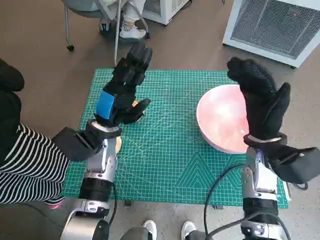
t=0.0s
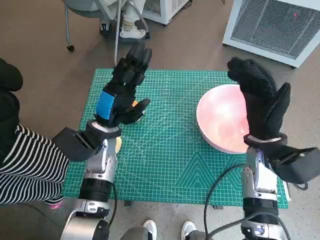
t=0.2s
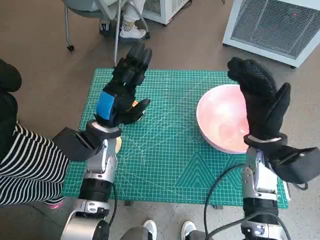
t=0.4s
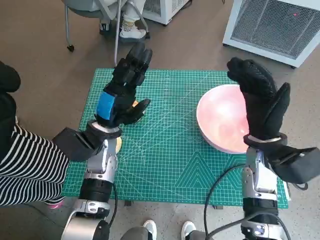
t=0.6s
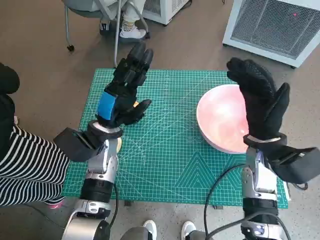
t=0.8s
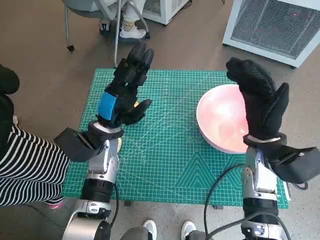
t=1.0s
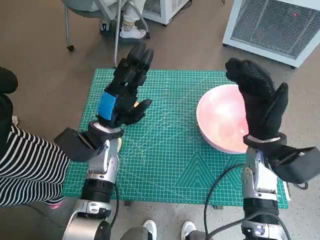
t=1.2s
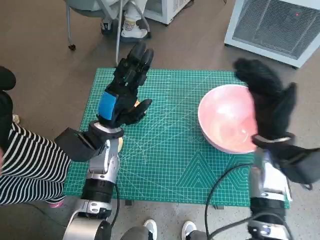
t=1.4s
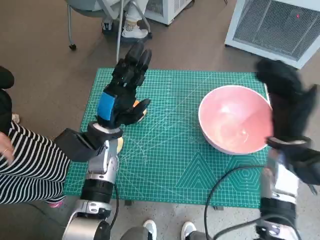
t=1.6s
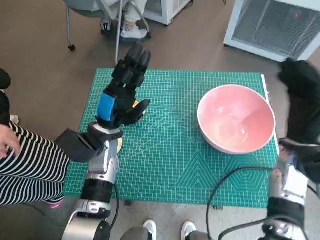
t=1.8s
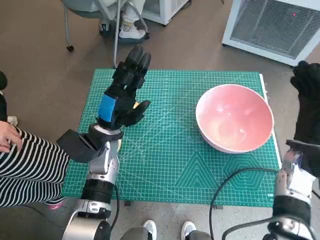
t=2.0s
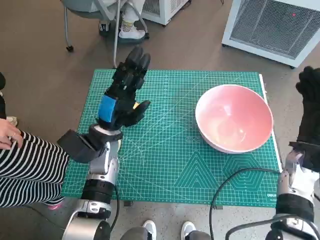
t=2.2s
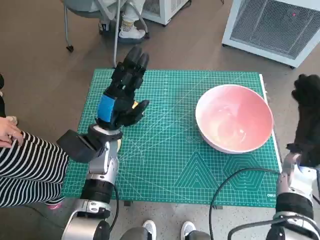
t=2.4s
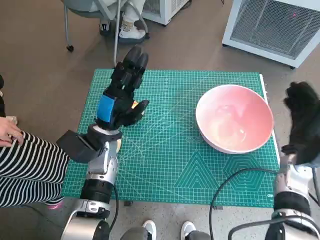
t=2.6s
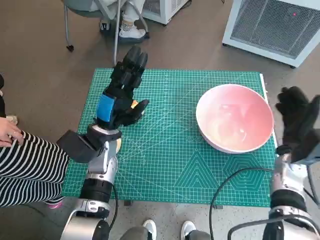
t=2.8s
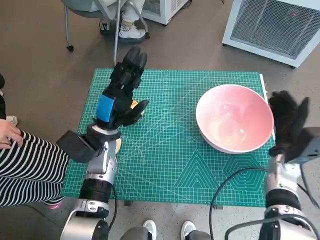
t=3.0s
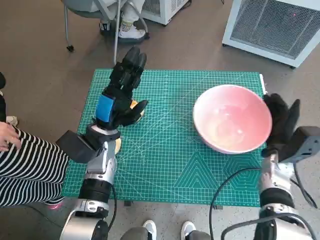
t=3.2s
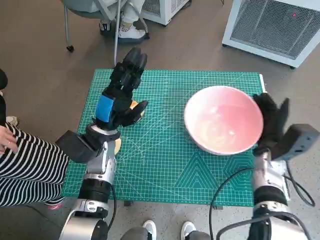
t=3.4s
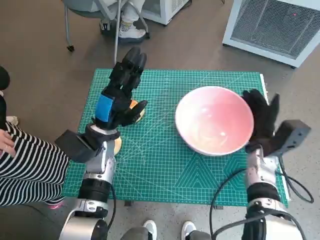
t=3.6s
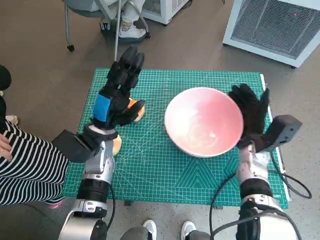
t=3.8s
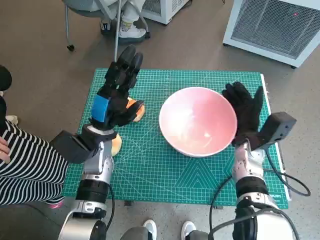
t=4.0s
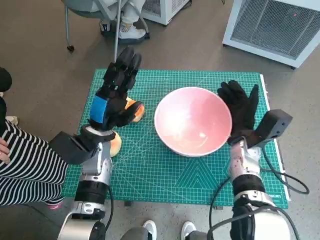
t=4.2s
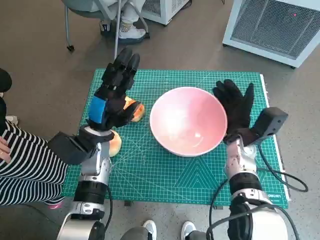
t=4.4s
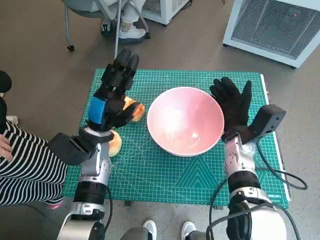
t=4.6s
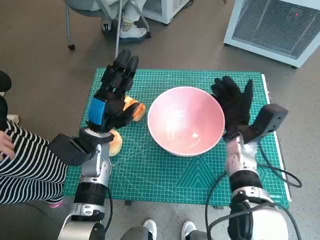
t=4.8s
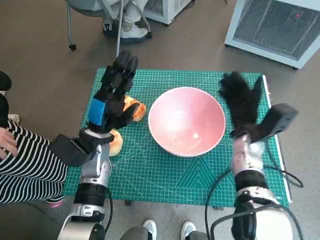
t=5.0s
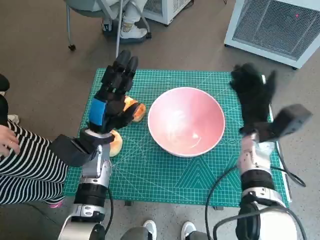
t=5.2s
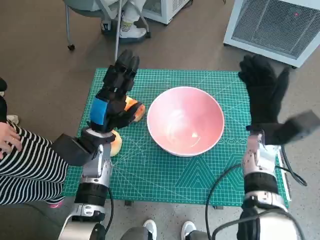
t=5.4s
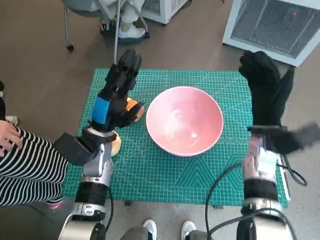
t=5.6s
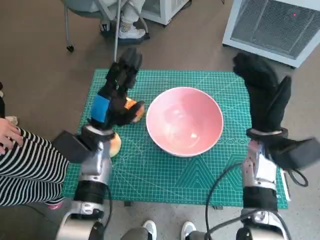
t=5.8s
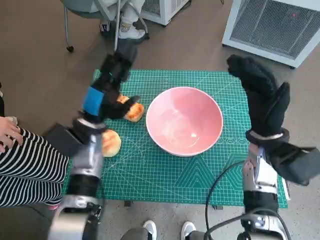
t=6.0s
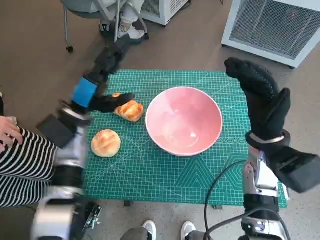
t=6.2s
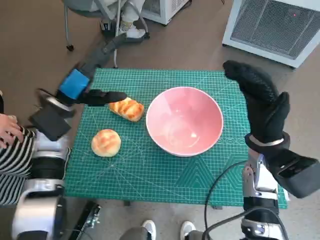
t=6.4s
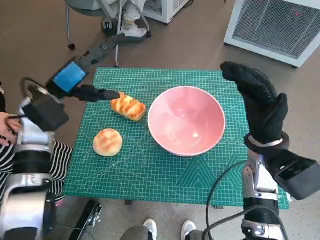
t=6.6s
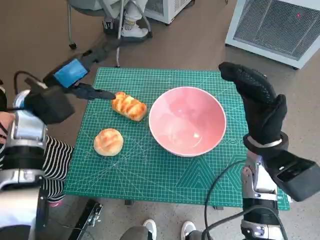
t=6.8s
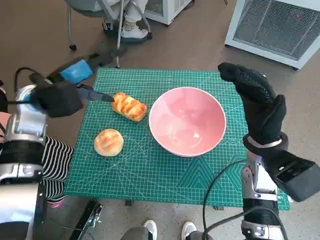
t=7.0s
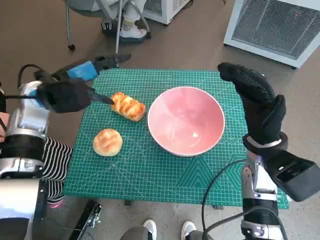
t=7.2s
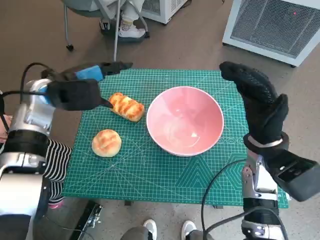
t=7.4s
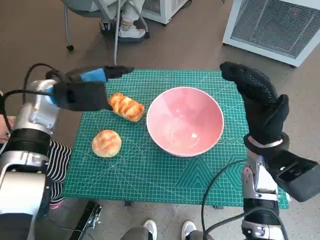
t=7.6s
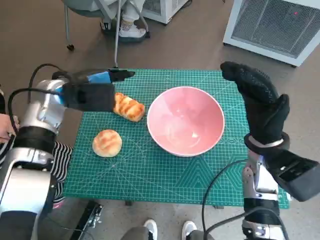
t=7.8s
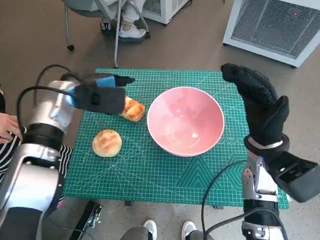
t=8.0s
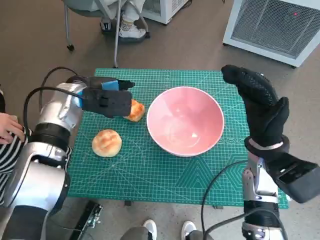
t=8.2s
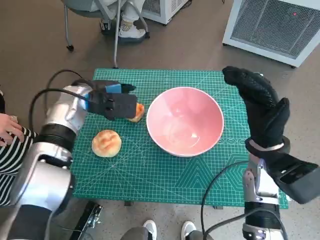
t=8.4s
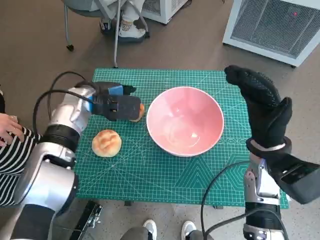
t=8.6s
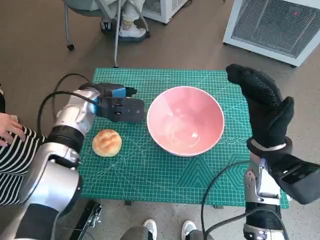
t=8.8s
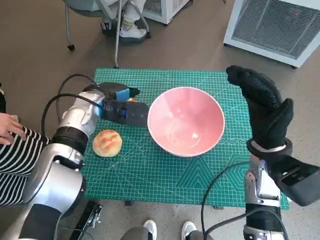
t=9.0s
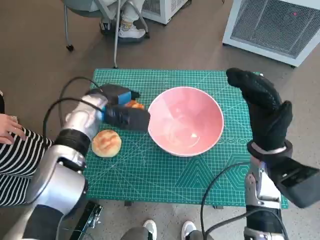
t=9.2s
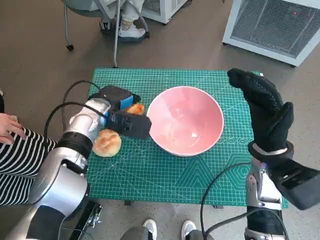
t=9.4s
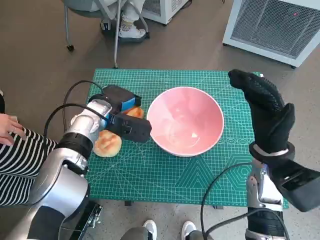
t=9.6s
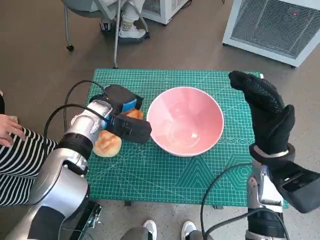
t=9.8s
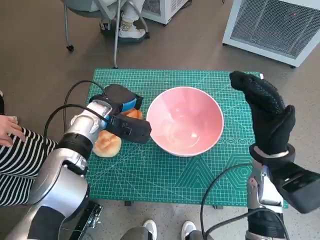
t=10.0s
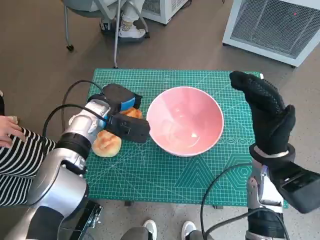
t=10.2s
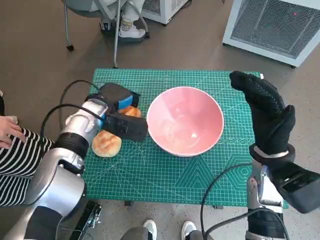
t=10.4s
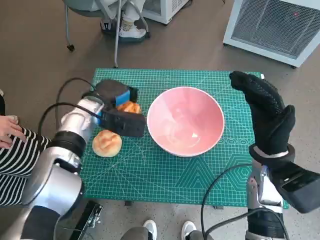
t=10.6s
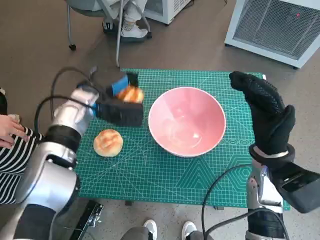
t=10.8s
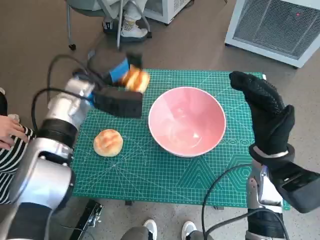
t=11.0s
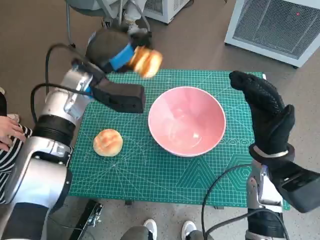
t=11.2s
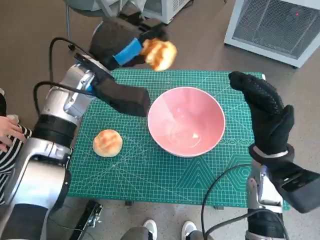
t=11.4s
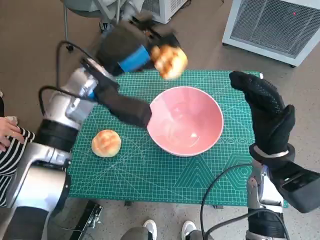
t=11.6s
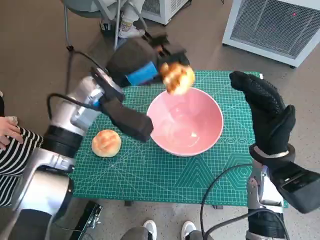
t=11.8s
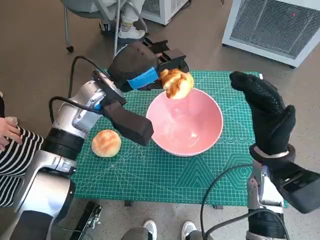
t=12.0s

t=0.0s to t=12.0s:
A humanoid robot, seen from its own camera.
Task of the whole recording: Push the bowl into the center of the table and put the bread into the bowl.
Step, t=0.0s to t=4.8s: Move the pink bowl to the center of table with right hand.
Step, t=5.2s to t=9.6s: Grasp the long bread with left hand.
t=1.6s to t=3.0s: The right hand travels downward by some 10 cm.
t=3.0s to t=4.4s: The right hand moves to the left, roughly 10 cm.
t=4.4s to t=6.0s: The right hand goes approximately 10 cm upward.
t=6.0s to t=7.6s: The left hand heads upward and to the left, covering about 10 cm.
t=7.6s to t=9.0s: The left hand goes approximately 10 cm to the right and downward.
t=9.0s to t=10.4s: The hands make only small movements.
t=10.4s to t=12.0s: The left hand moves upward, roughly 10 cm.

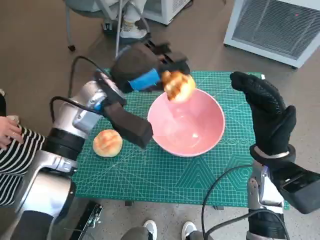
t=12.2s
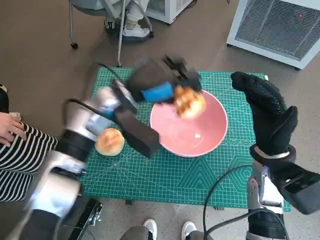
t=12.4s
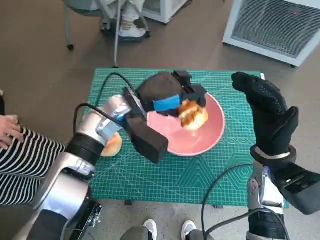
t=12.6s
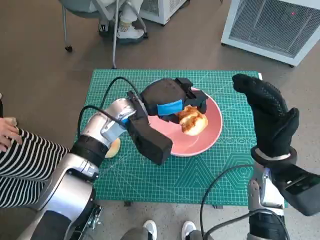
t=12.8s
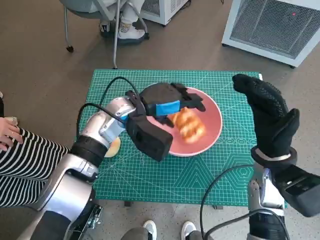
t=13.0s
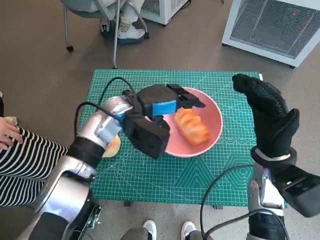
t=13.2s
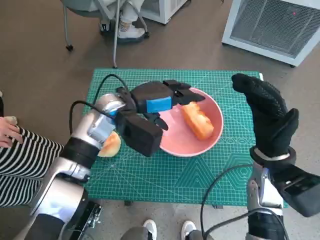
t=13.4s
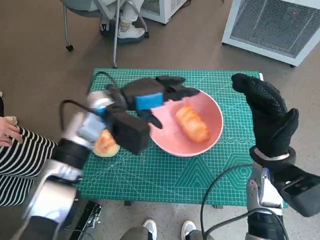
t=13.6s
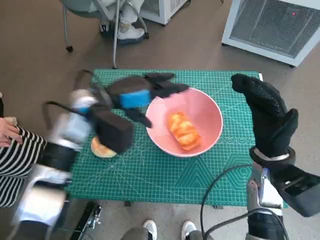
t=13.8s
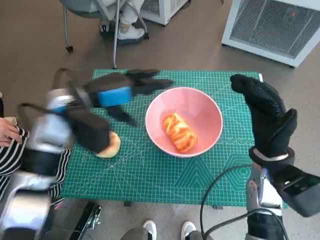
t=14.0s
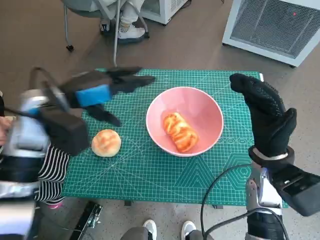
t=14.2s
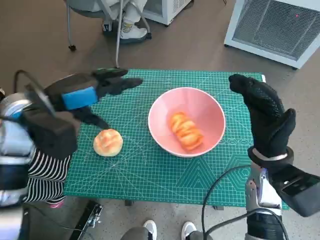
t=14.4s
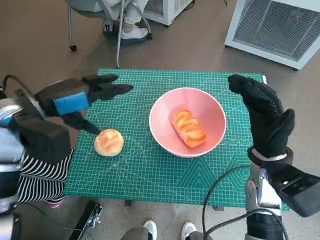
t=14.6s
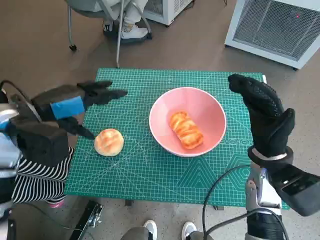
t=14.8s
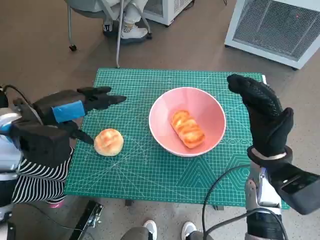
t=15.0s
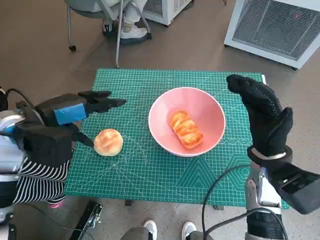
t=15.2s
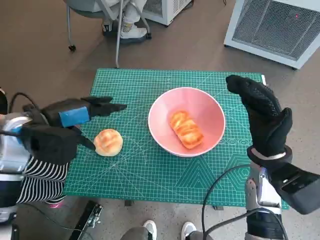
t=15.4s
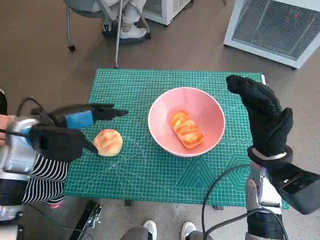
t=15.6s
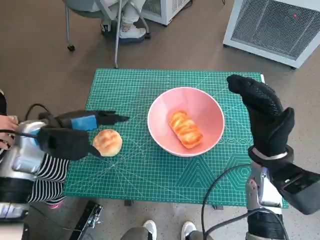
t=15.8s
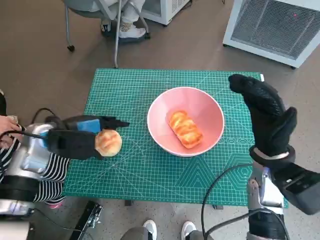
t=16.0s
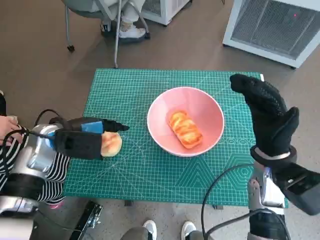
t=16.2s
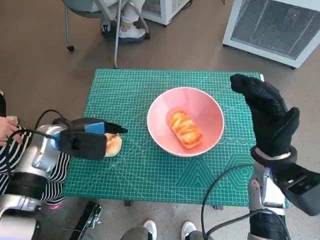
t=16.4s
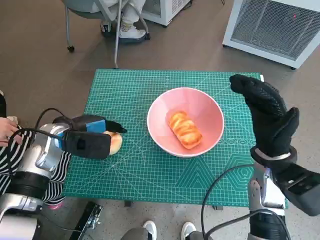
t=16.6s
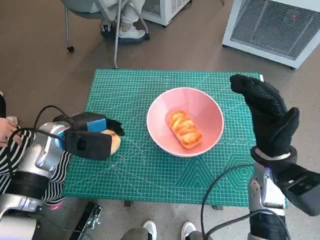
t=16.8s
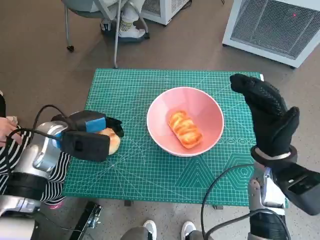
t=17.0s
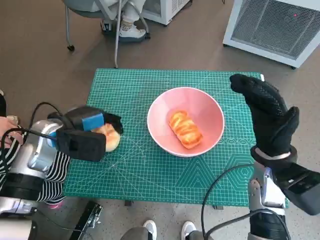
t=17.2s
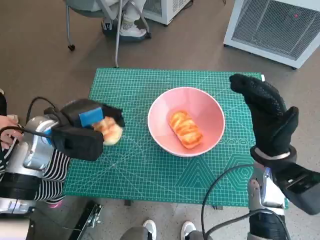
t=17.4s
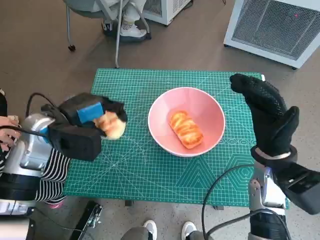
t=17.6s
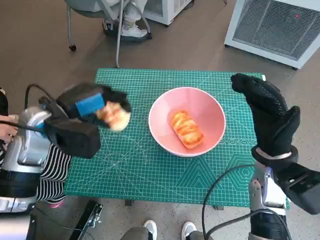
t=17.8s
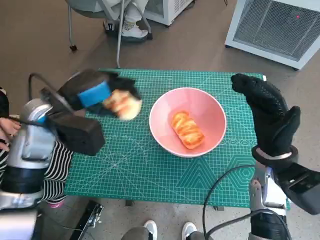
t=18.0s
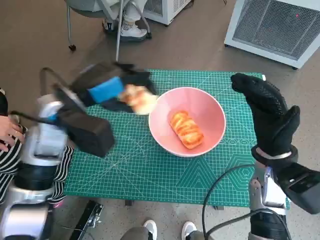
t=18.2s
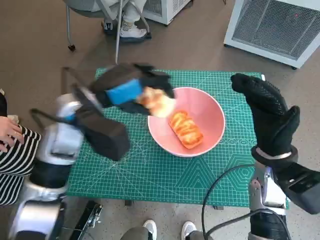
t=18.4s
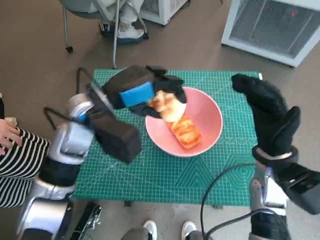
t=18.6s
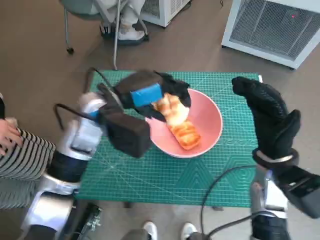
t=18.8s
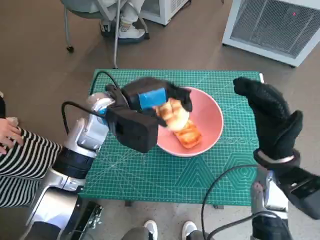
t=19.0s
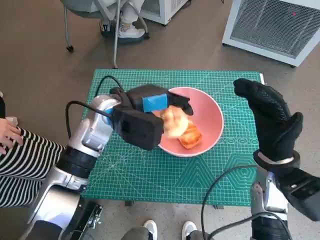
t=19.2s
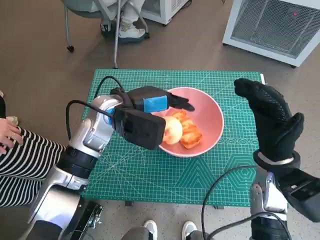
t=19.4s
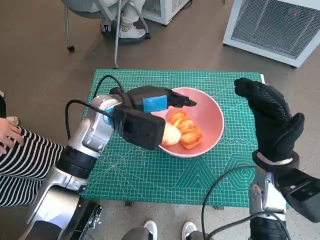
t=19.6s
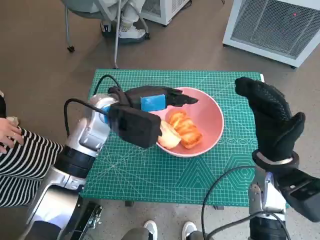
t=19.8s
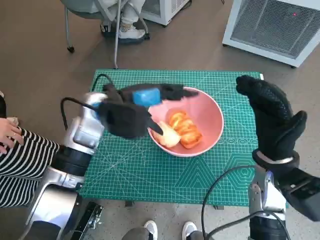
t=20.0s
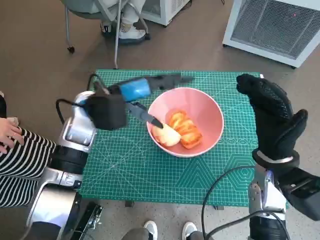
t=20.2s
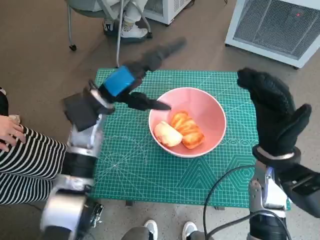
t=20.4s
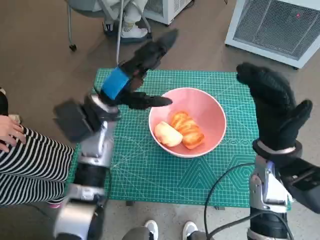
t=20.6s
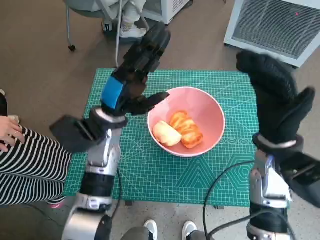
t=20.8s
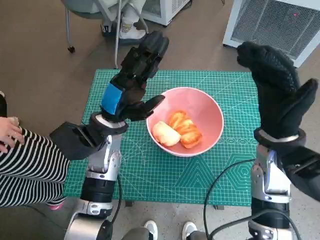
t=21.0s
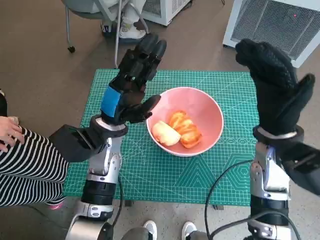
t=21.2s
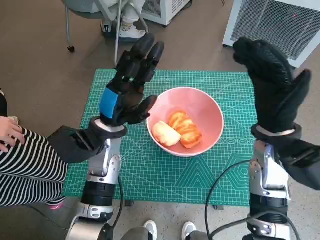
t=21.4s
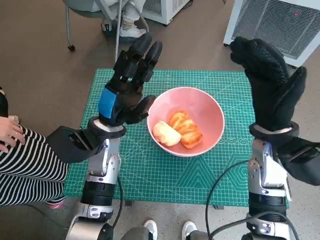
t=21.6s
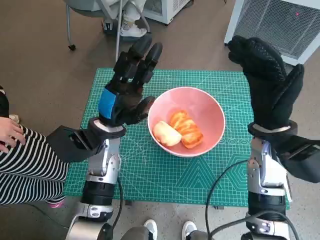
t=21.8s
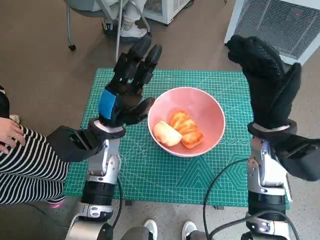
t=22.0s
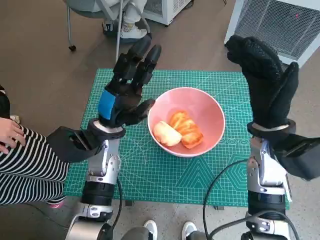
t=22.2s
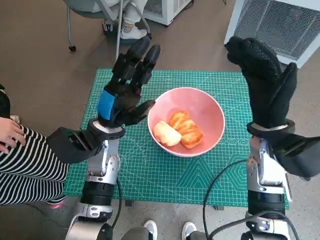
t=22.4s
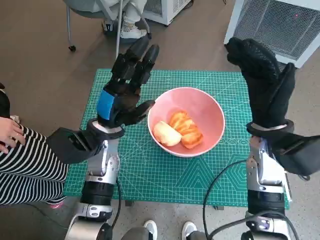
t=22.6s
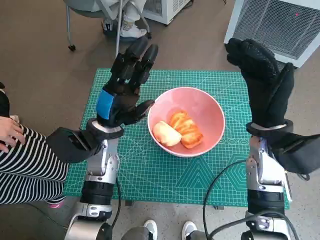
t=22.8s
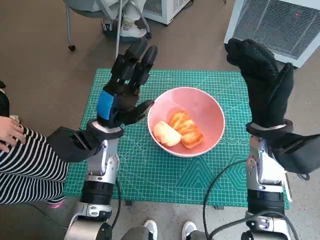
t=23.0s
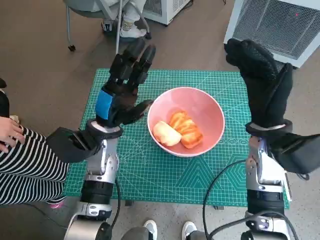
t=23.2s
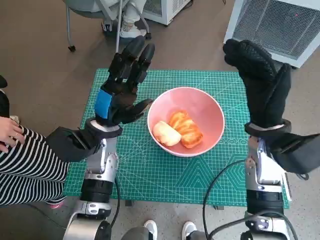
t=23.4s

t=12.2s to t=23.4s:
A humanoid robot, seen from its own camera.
Task of the whole recording: Push the bowl into the center of the table and put the bread into the bowl.
Step, t=13.8s to t=16.4s: Grasp the round bread with left hand.
Step, t=16.6s to t=20.4s: Place the round bread in pink bowl with left hand.
t=13.8s to t=15.4s: The left hand heads to the left and backward, covering approximately 10 cm.
t=15.4s to t=17.0s: The left hand is displaced downward by about 5 cm.
t=17.0s to t=18.6s: The left hand goes about 15 cm to the right and upward.
t=20.2s to t=21.8s: The left hand goes roughly 5 cm downward; the right hand ends up approximately 5 cm from where it was.
t=21.8s to t=23.4s: The two hands keep their place.
